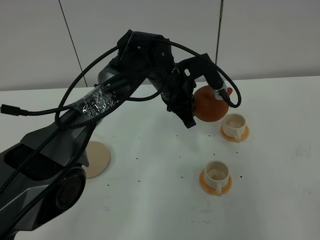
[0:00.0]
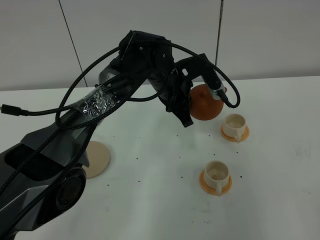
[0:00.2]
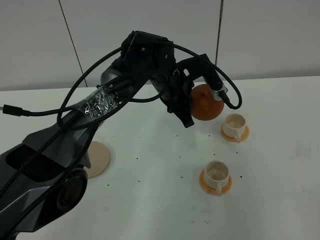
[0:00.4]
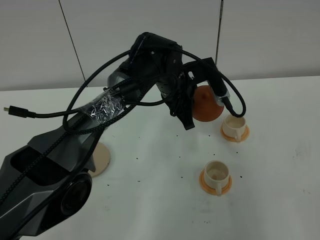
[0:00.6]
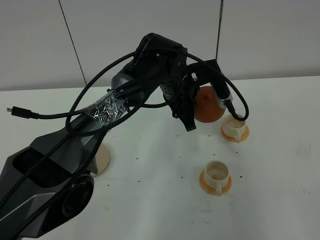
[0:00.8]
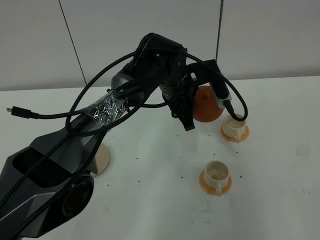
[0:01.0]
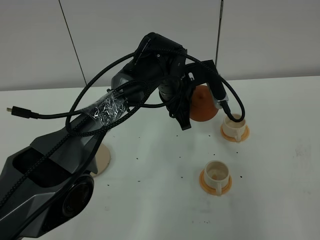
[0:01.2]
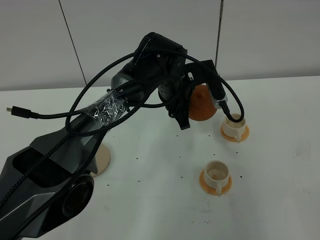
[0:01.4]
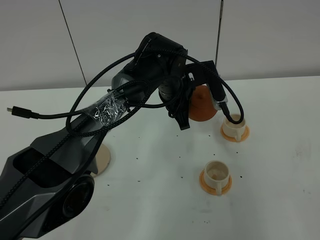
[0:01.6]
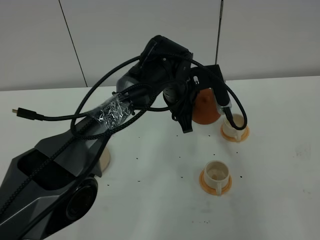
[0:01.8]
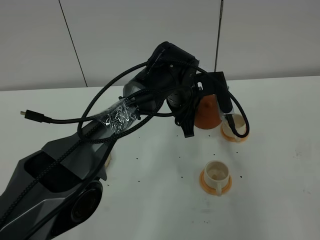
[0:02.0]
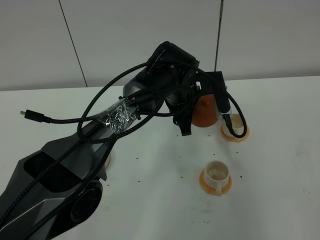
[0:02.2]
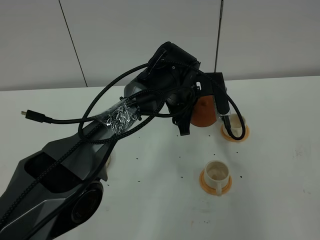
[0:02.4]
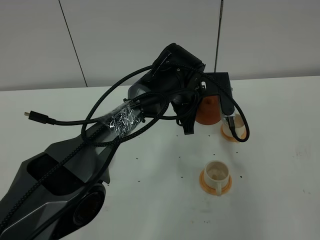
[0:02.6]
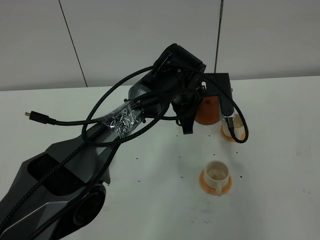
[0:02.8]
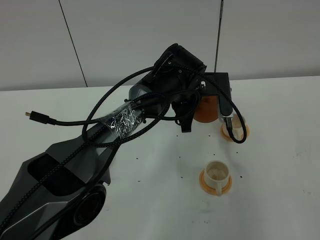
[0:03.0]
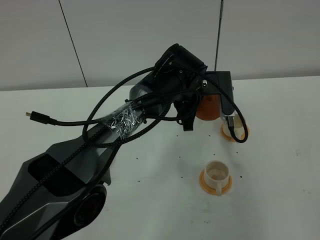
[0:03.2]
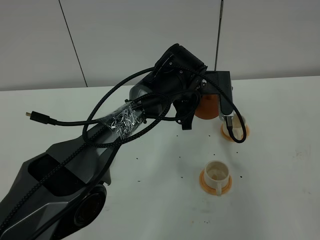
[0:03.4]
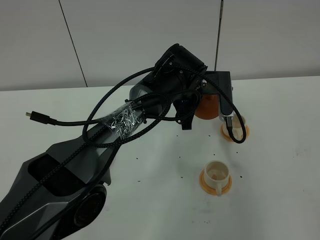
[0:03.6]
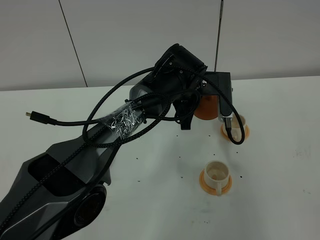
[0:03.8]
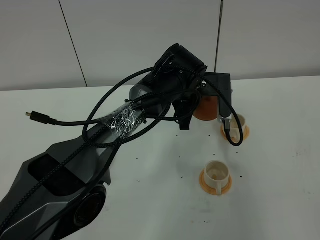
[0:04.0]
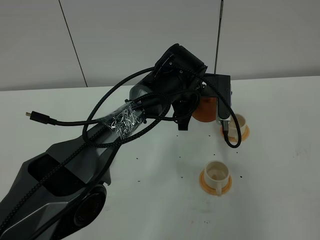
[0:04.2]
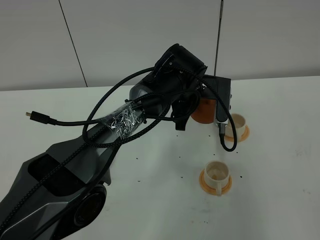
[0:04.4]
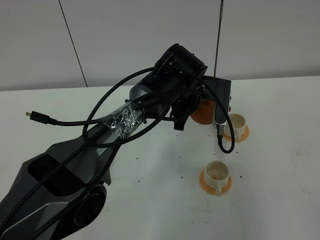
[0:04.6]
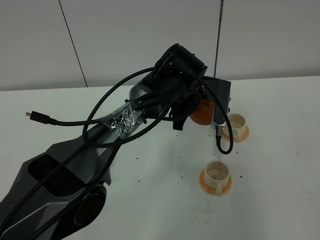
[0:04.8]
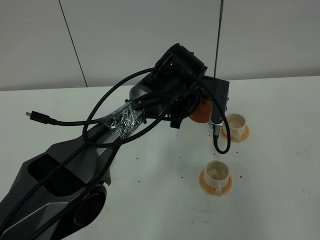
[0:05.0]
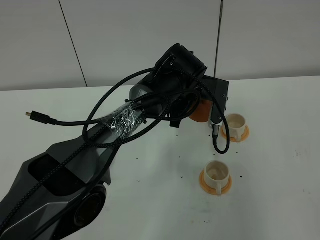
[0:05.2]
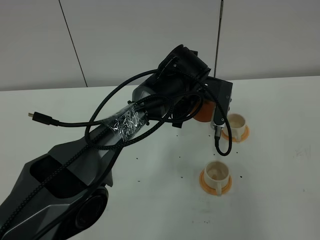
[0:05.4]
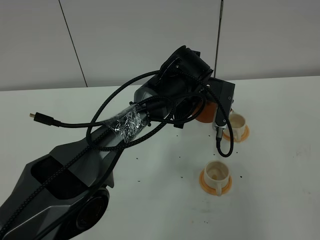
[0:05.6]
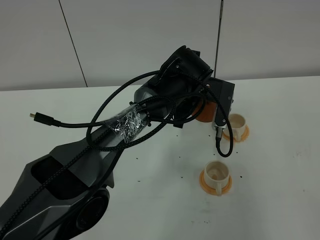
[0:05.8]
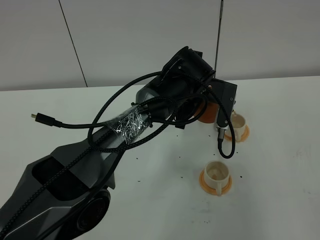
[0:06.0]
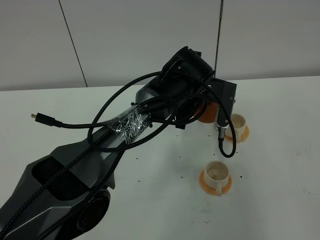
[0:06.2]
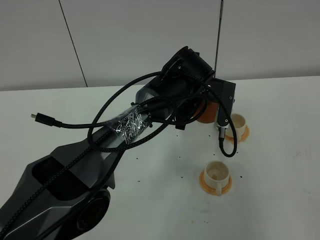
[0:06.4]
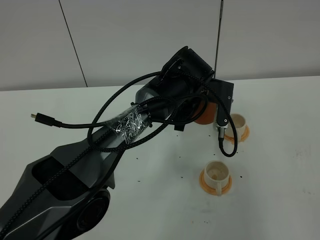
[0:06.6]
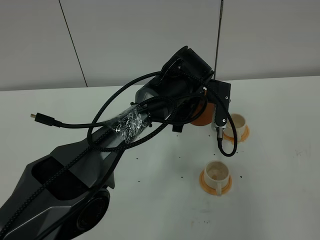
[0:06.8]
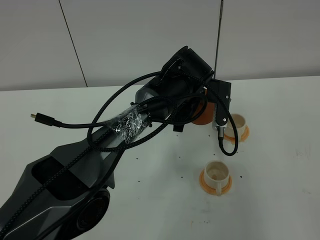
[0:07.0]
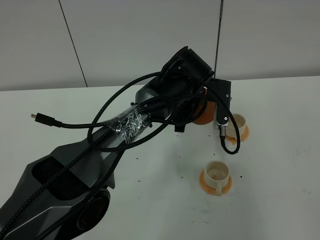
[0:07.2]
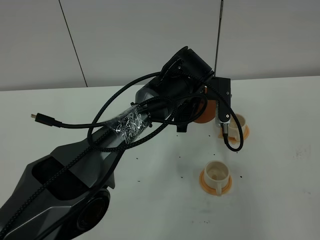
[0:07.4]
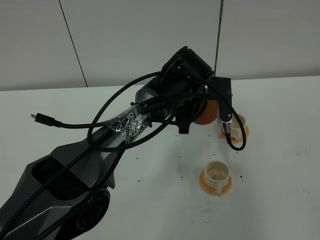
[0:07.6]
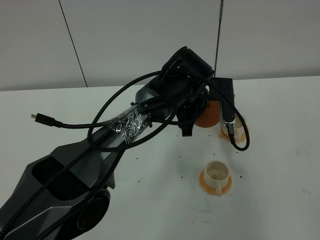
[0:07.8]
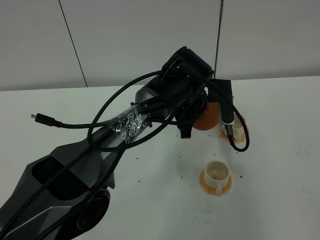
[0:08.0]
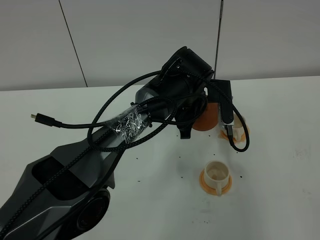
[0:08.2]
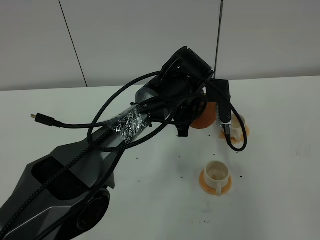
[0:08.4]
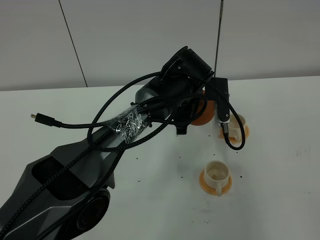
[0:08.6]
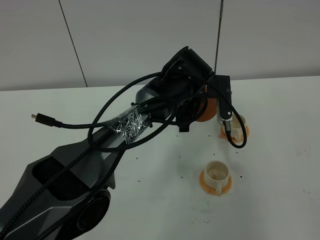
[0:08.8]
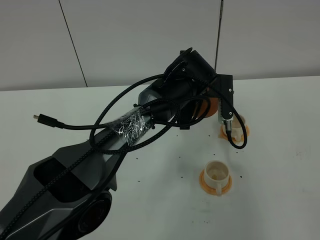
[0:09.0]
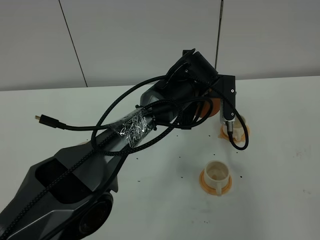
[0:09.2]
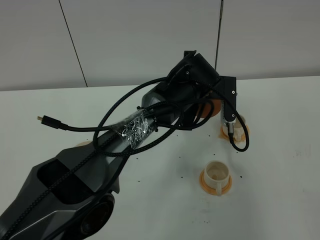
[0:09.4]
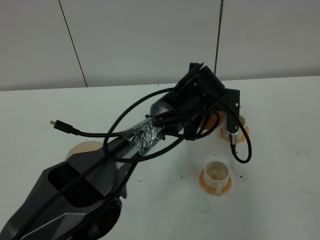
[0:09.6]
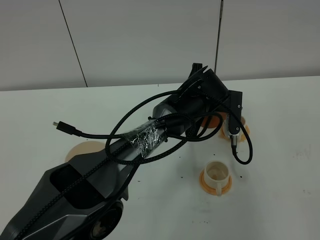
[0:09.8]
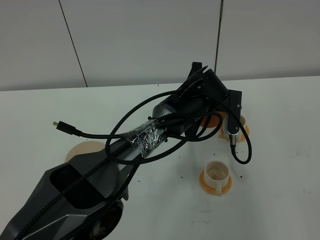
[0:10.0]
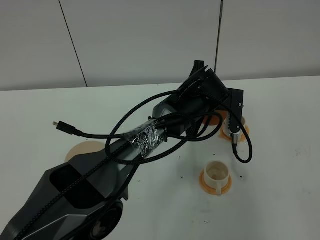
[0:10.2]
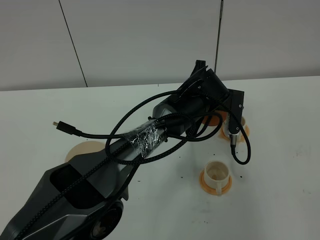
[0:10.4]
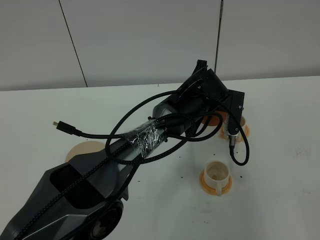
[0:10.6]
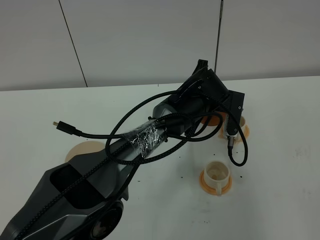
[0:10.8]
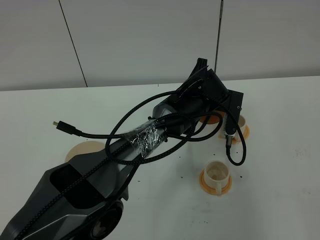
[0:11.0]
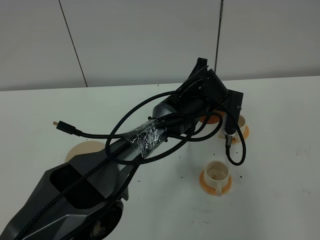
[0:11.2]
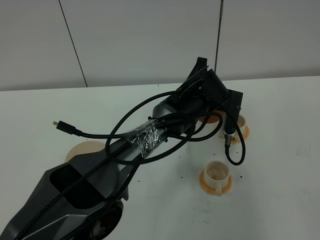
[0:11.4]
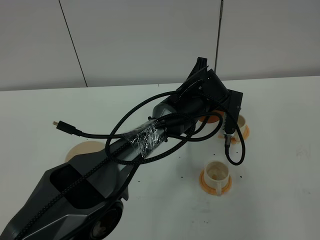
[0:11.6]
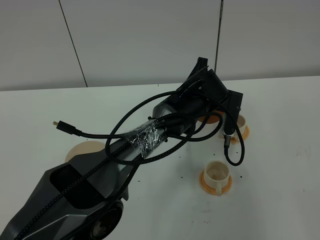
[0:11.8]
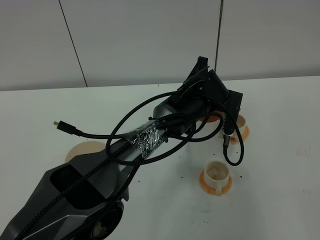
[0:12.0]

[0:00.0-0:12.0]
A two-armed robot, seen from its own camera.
Task of the whole recording: grasp the brown teapot and pour the tea into the two white teacups one by one, put the brown teapot back in its original place.
0:00.0 to 0:01.6: The grippers move only a little.
0:01.6 to 0:03.0: There are only small adjustments of the grippers.
0:03.0 to 0:10.4: The grippers stay close to where they were, moving slightly.
0:10.4 to 0:12.0: The grippers stay close to where they were, moving slightly.

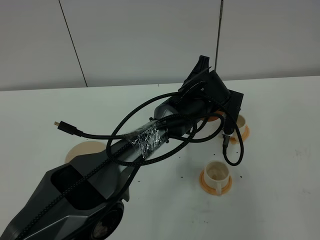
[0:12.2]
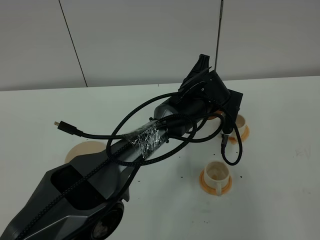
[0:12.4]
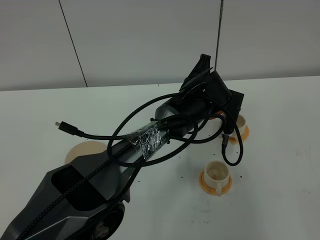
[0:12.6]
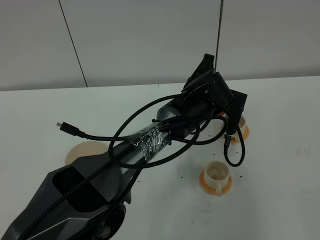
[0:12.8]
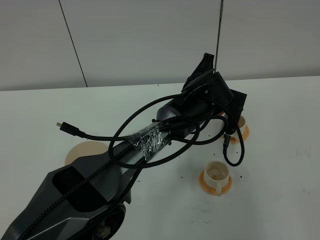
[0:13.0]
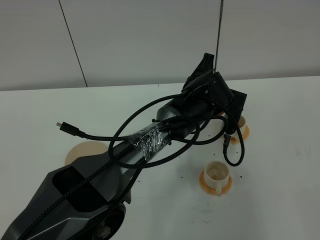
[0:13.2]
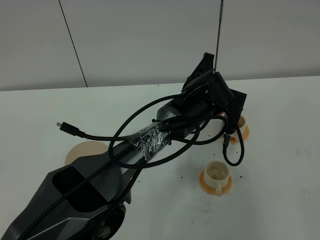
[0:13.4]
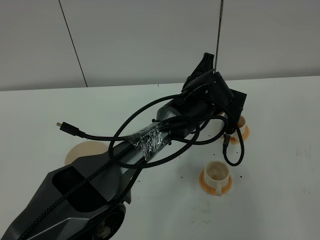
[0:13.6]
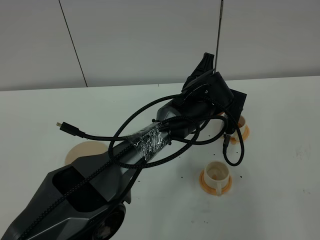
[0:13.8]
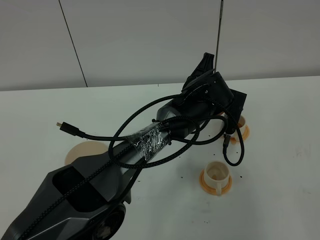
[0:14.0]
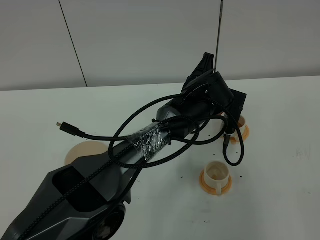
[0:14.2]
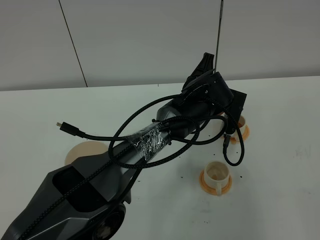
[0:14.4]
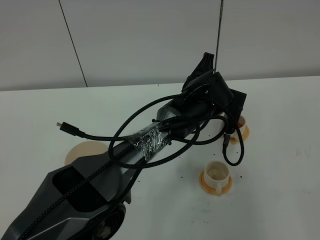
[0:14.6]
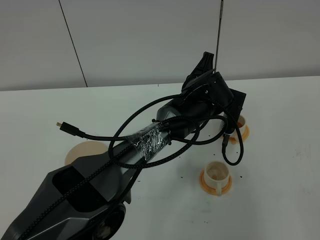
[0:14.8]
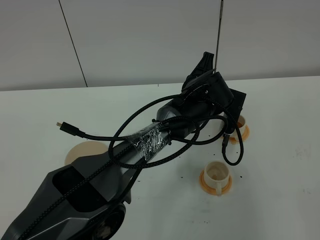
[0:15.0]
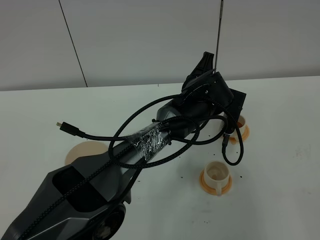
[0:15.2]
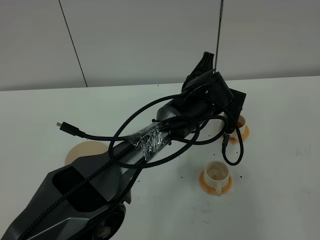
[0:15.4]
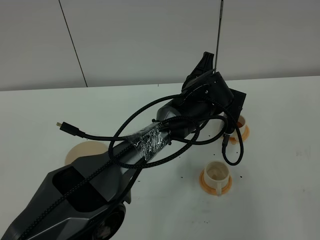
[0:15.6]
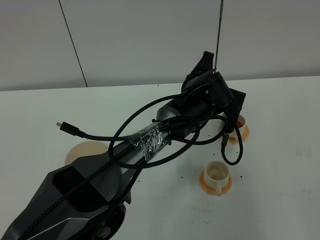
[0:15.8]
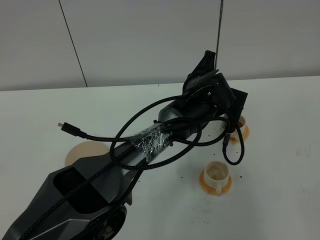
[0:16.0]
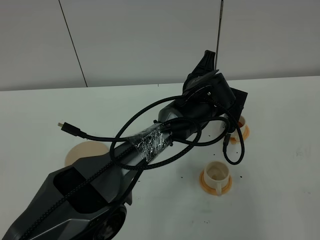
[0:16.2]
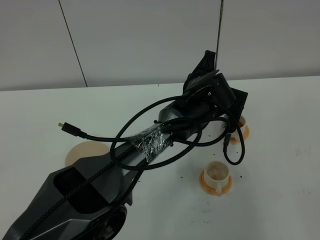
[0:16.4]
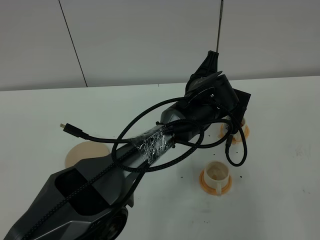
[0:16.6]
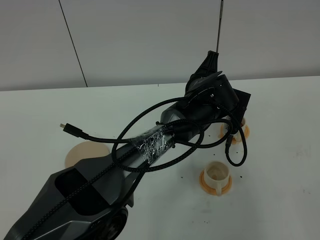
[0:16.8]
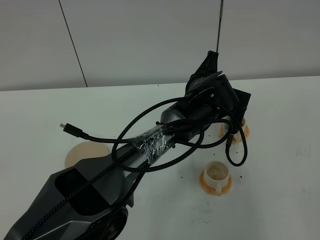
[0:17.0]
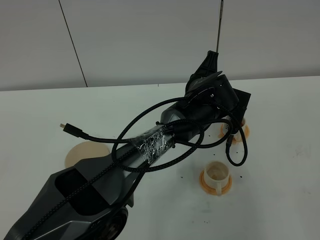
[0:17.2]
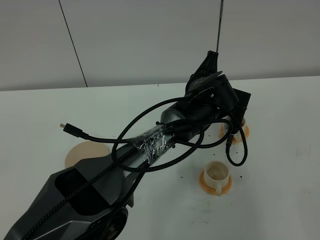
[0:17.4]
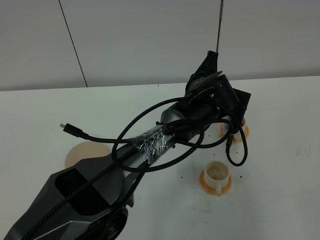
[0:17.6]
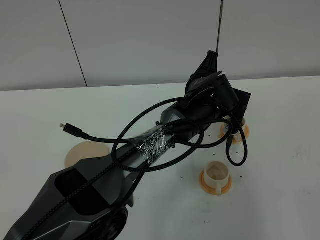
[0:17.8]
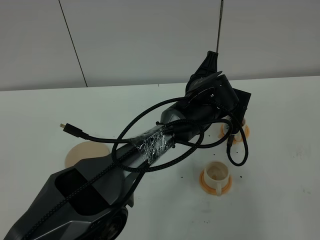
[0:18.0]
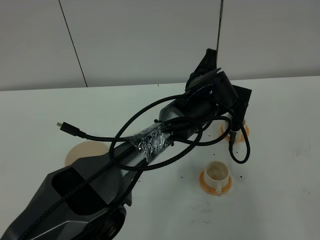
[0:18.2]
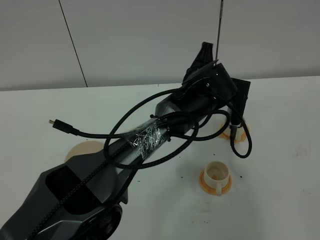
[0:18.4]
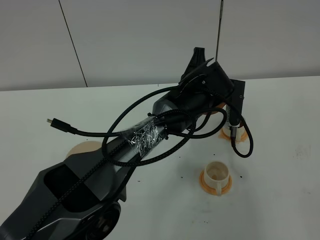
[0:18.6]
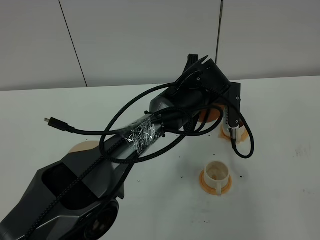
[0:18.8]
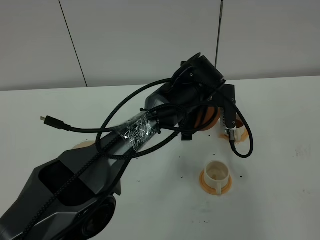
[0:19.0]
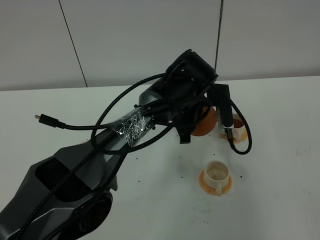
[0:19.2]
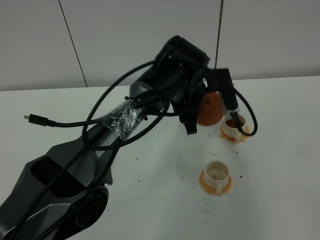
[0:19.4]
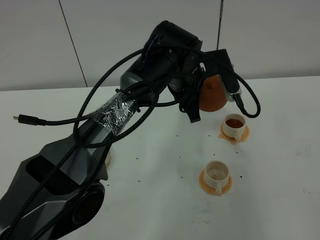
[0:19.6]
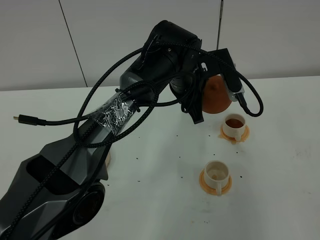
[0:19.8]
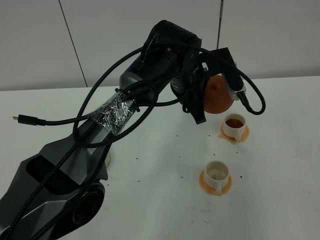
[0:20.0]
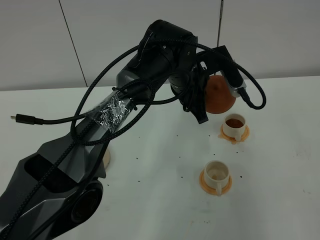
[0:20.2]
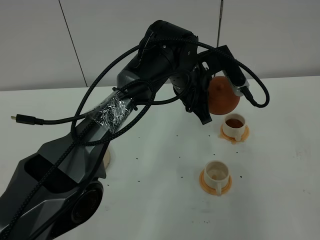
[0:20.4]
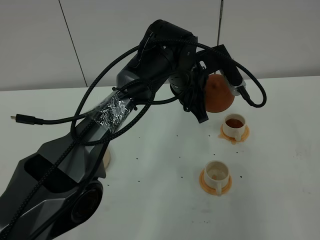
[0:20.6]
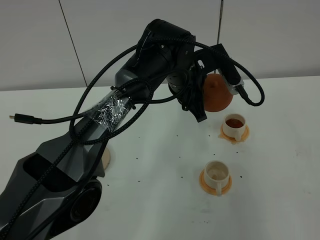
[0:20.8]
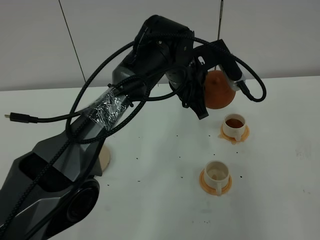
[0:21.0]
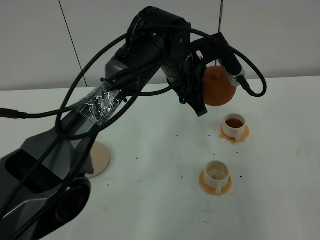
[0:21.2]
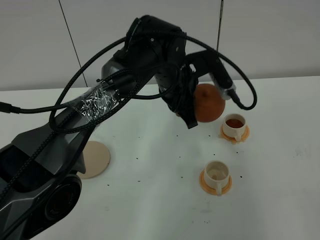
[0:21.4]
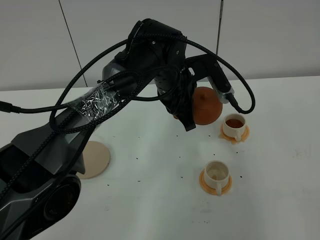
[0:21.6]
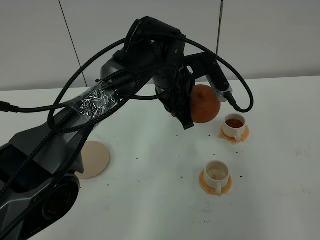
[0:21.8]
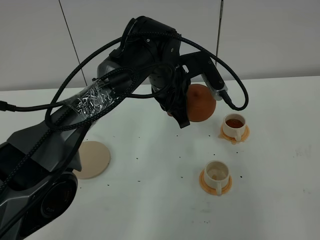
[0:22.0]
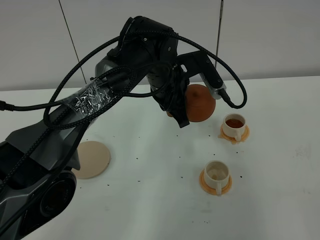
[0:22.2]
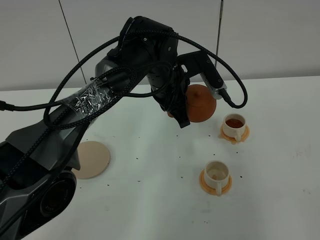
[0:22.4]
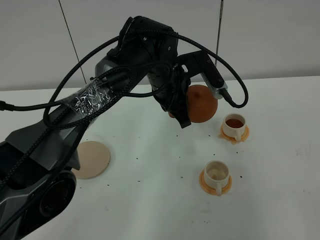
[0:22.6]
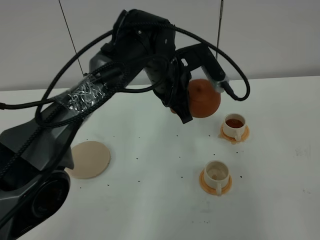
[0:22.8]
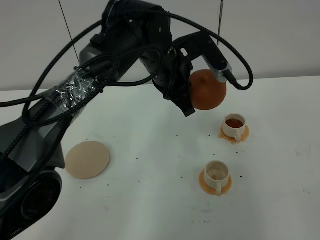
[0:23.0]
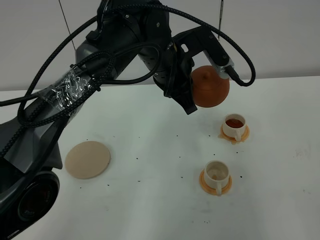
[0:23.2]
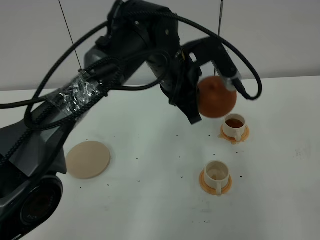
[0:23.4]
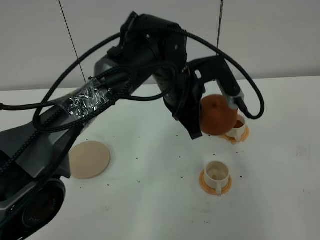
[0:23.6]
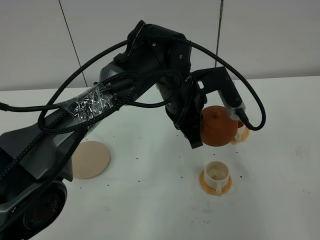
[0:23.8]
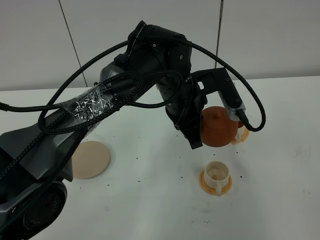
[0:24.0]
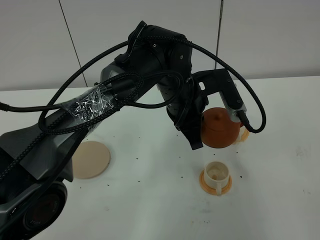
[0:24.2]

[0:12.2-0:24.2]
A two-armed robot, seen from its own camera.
Task of the whole recording: grasp the brown teapot and pour the tea into the two white teacups one by one, put the brown teapot back in its original place.
0:12.2 to 0:15.2: The two grippers keep their place.
0:15.2 to 0:16.6: Neither gripper changes place.
0:16.6 to 0:18.2: Neither gripper changes place.
0:18.2 to 0:19.8: The left gripper changes place by roughly 5 cm.
0:22.6 to 0:24.2: The left gripper shifts by roughly 5 cm.
